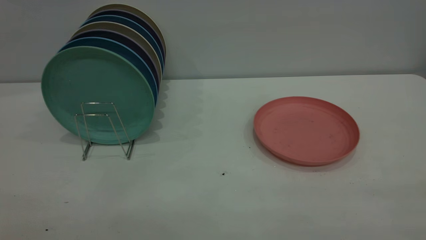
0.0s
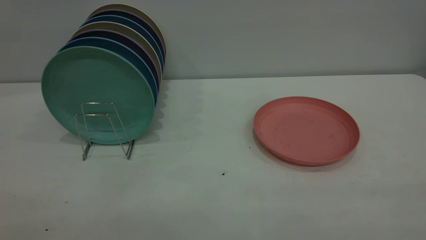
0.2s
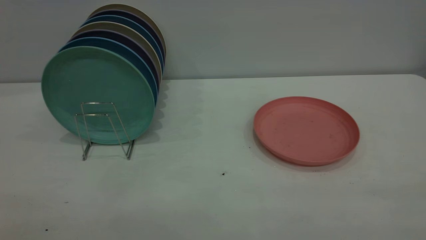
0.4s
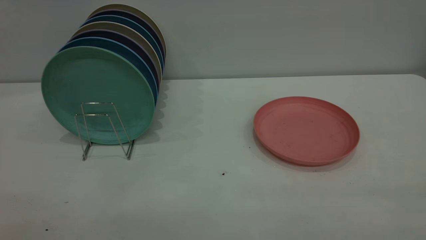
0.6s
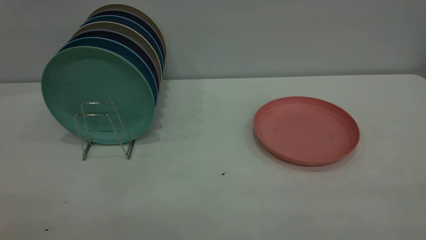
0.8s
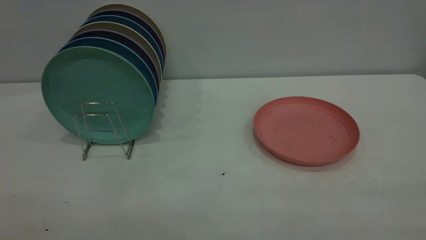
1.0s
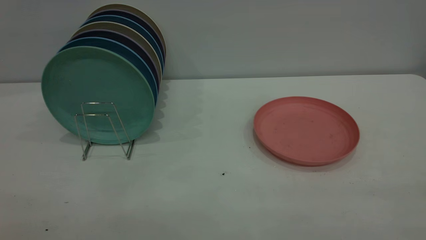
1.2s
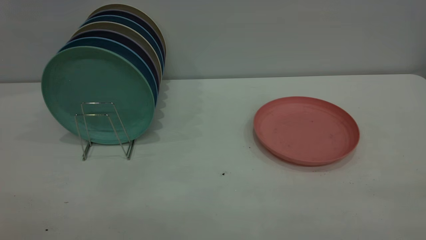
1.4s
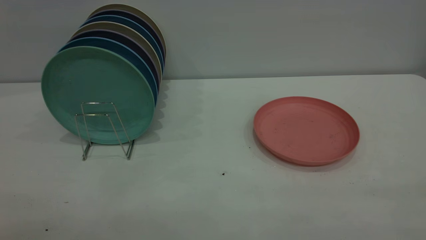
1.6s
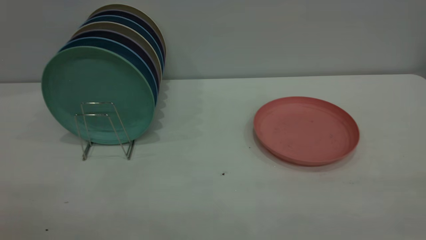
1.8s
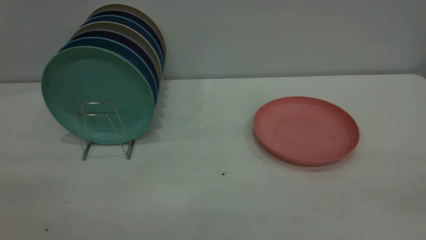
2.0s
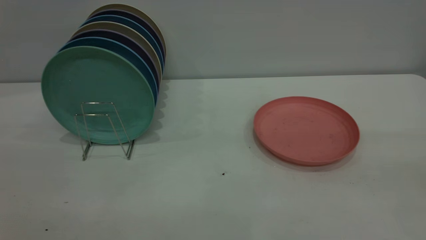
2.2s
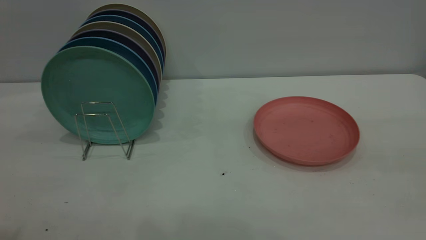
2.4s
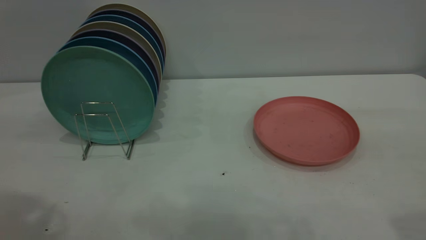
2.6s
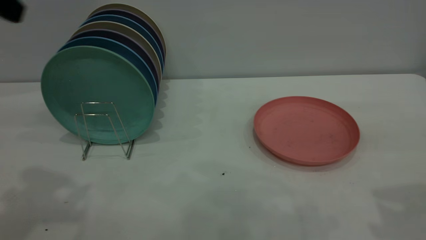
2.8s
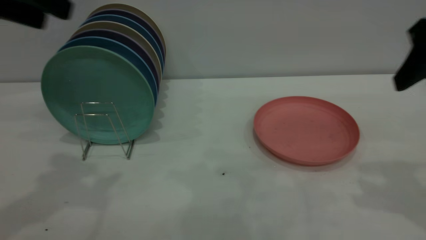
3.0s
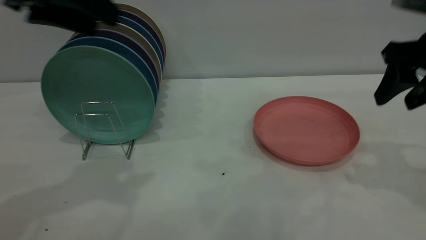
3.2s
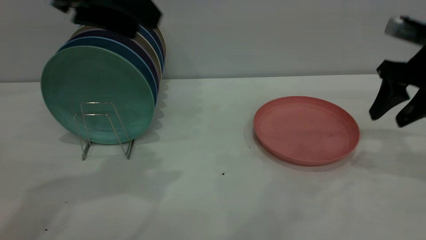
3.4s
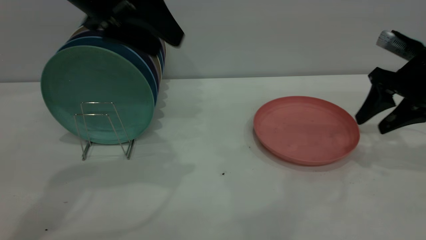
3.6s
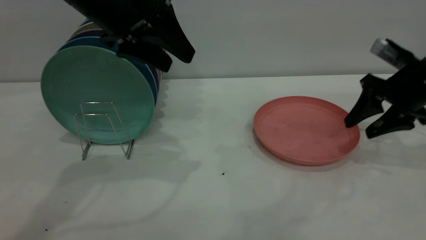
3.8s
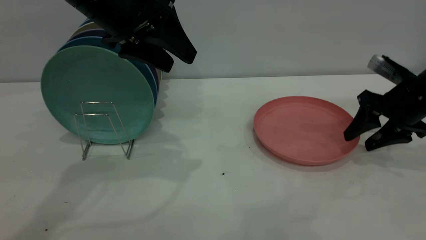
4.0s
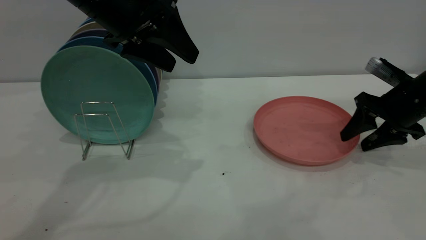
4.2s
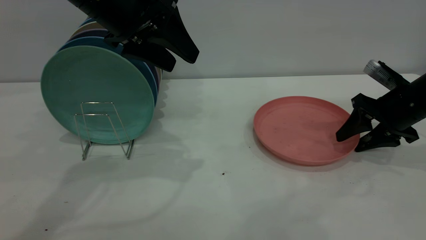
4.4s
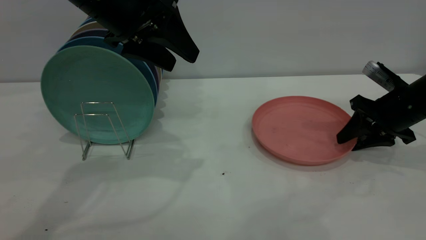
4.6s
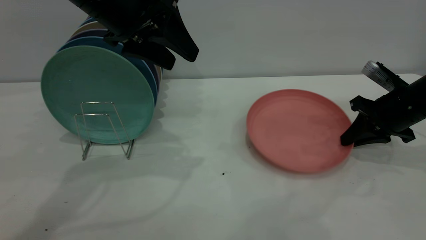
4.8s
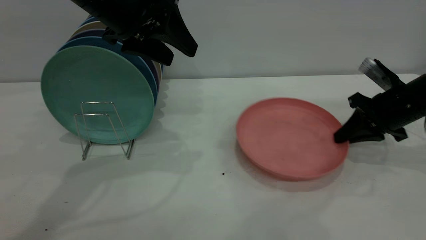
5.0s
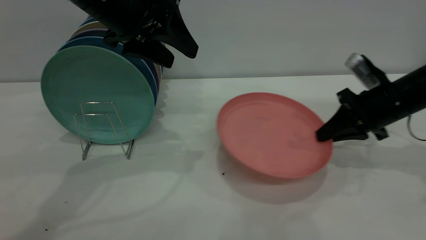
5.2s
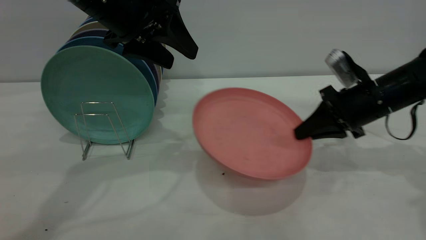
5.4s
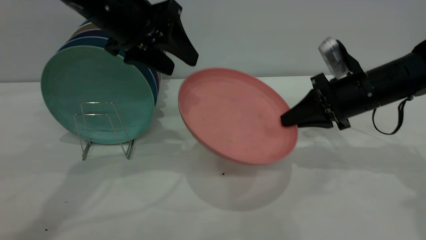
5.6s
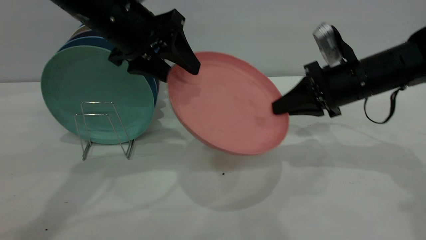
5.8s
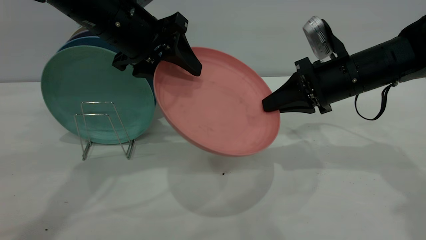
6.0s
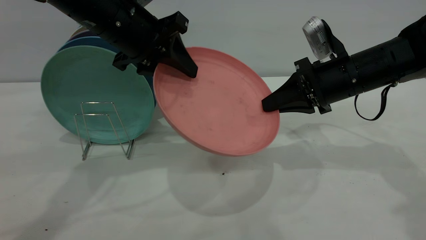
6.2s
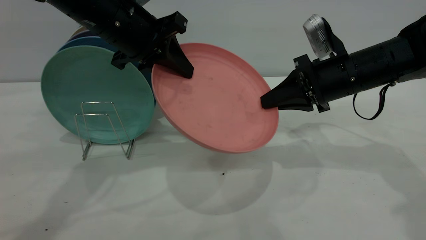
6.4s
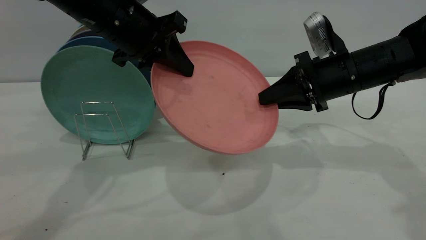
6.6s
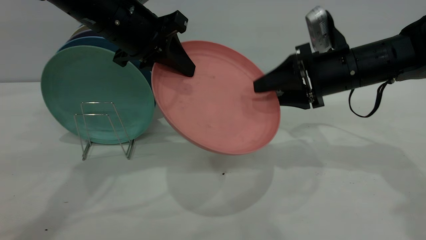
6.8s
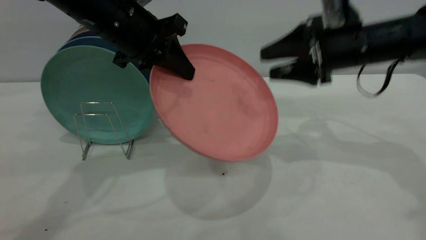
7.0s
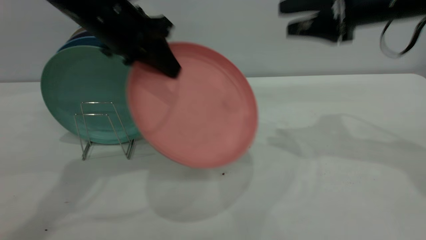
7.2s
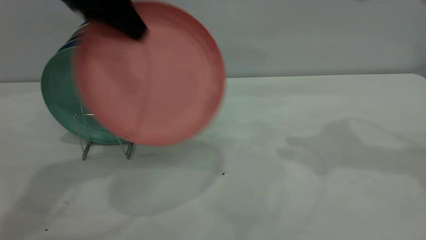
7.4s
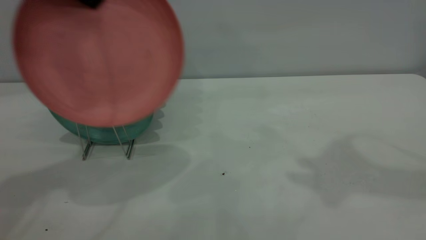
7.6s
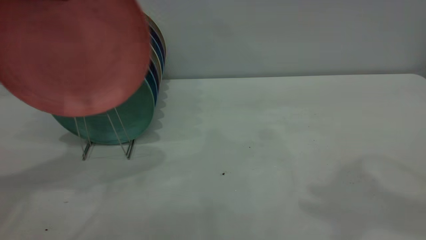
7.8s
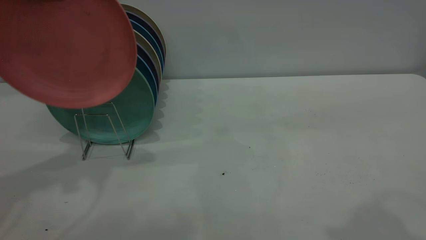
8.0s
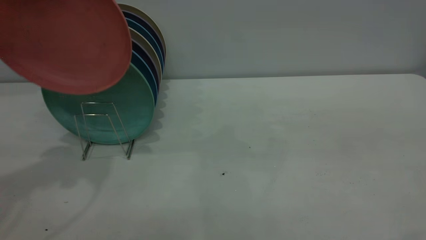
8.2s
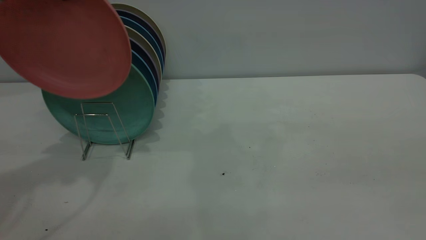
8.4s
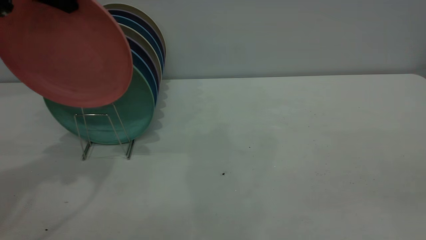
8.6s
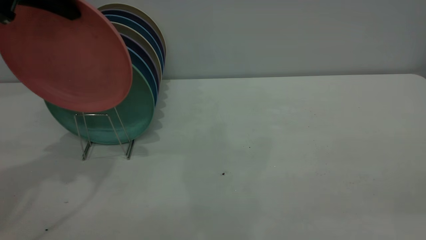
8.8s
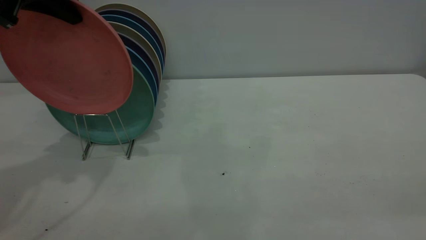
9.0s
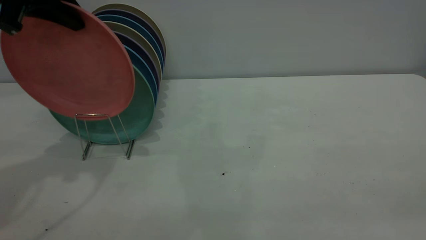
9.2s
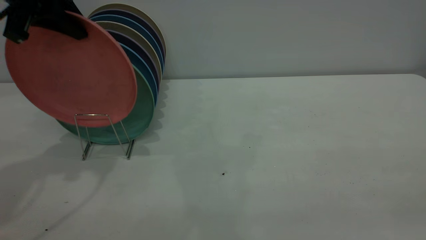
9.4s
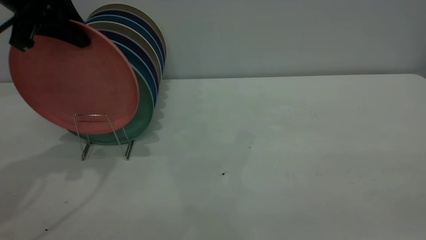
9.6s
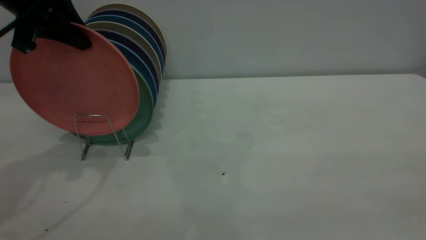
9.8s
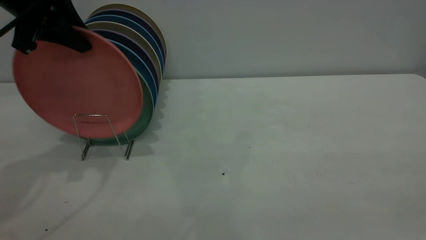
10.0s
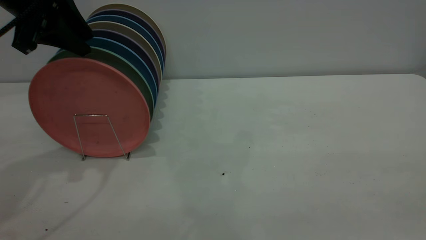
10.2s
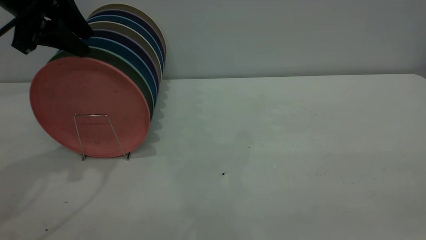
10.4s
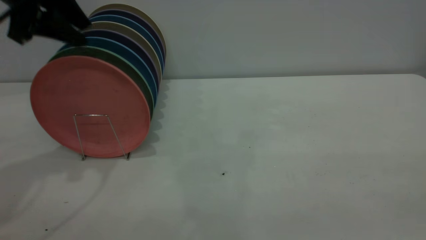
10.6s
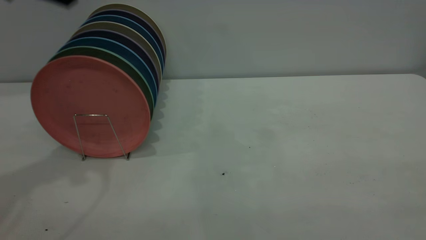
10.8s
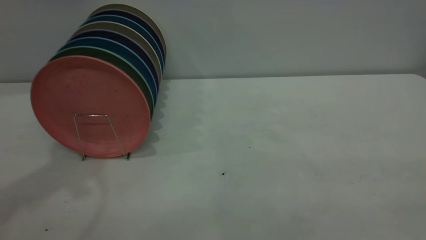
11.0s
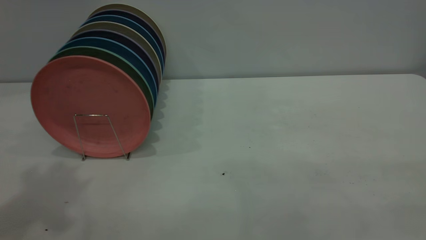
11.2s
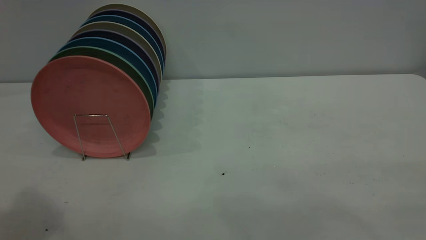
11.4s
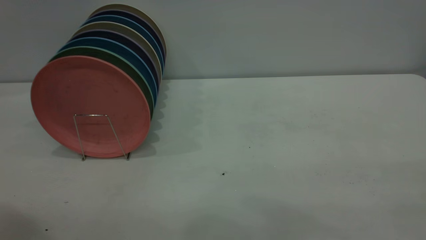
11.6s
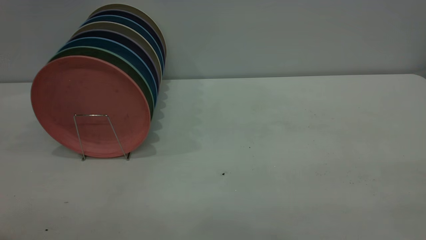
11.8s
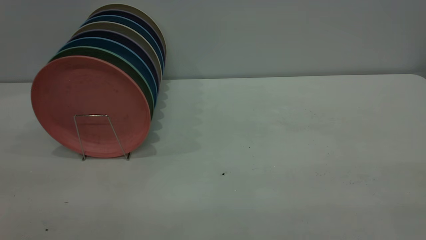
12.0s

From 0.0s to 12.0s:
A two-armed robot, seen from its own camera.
Task of the whole recording: the right gripper grasp the pink plate, the right gripper pass the pink plate to the left gripper, and the left gripper place the pink plate on the plate rack.
Step, from 0.0s to 5.2s: Pick up the plate with the right gripper.
Step, from 5.4s to 7.0s: Pass the plate from the right gripper to the left gripper.
Step, from 7.4s to 10.6s: Place the plate on the shelf.
From 0.0s to 1.6s: Both grippers stay about where they are.
From 1.6s to 3.0s: Both grippers move forward, roughly 30 cm. The right gripper opens its fingers.
From 3.0s to 4.4s: The right gripper travels downward and forward by roughly 20 cm, while the left gripper goes about 15 cm to the right, forward and downward.
From 4.4s to 6.0s: The right gripper travels to the left and upward by approximately 10 cm, and closes up.
From 6.0s to 7.6s: The right gripper is displaced upward by some 25 cm, and opens, while the left gripper goes roughly 15 cm upward and to the left, and closes.
From 7.6s to 9.0s: The left gripper shifts by roughly 5 cm; the right gripper goes approximately 30 cm backward.
From 9.0s to 10.4s: The left gripper opens its fingers.
From 10.4s to 12.0s: The left gripper is displaced backward by approximately 30 cm.
